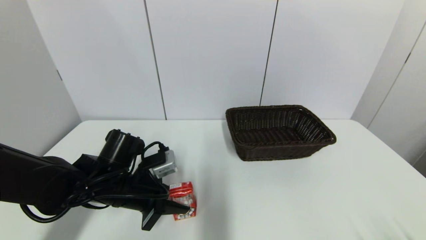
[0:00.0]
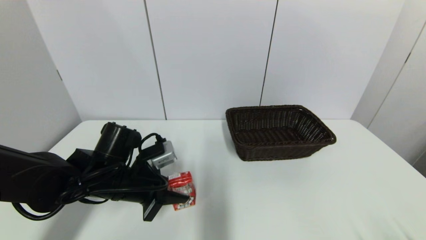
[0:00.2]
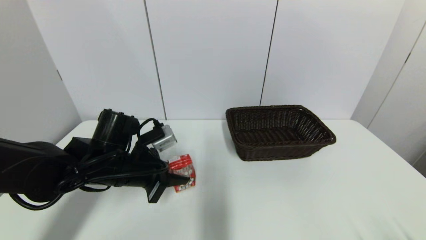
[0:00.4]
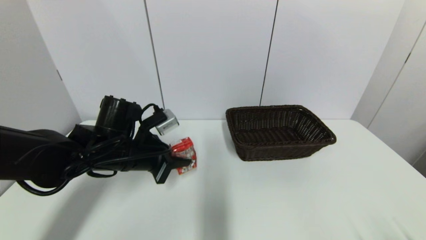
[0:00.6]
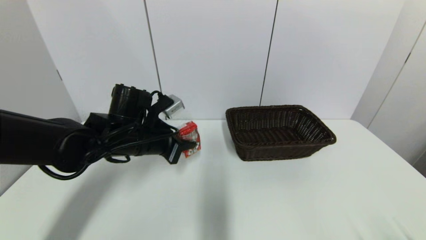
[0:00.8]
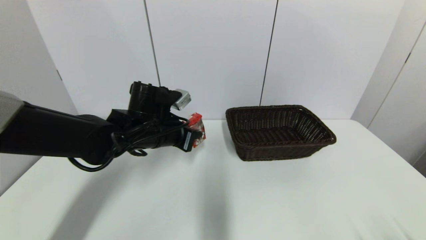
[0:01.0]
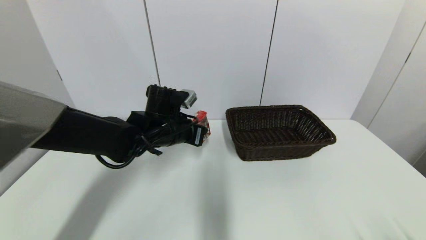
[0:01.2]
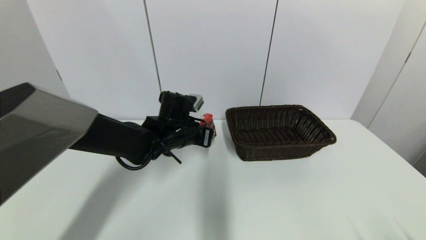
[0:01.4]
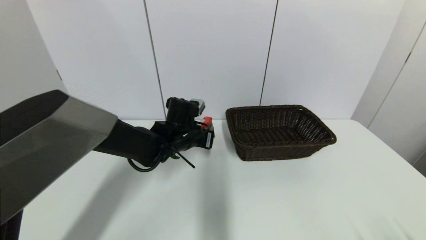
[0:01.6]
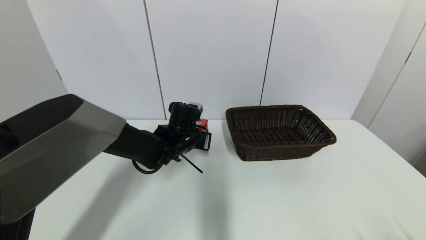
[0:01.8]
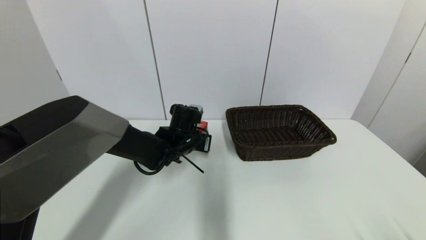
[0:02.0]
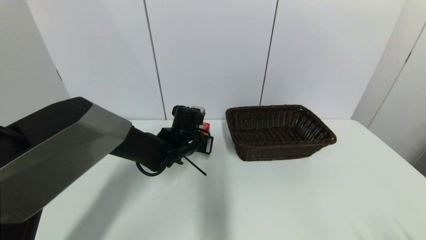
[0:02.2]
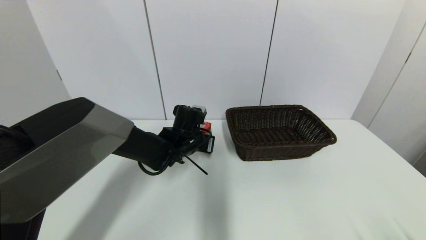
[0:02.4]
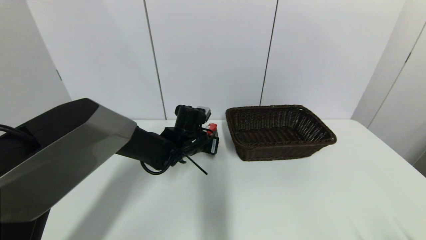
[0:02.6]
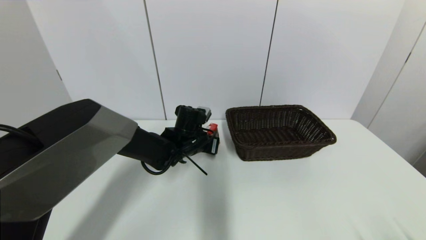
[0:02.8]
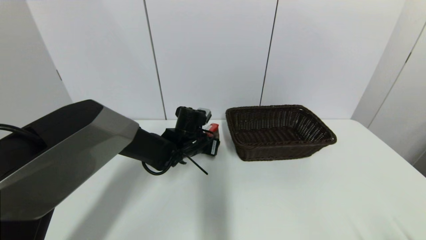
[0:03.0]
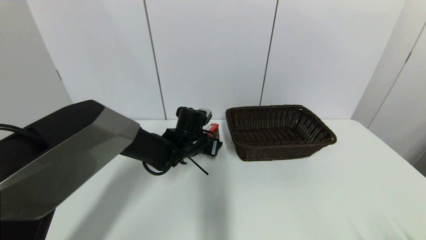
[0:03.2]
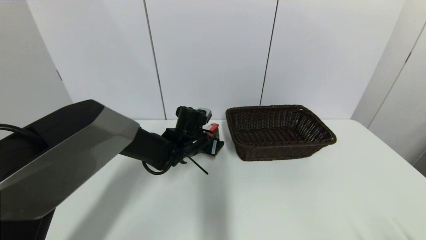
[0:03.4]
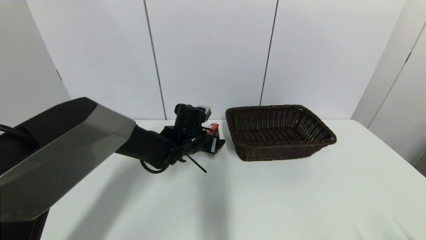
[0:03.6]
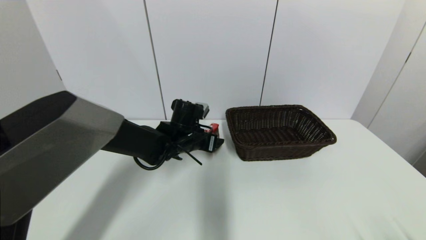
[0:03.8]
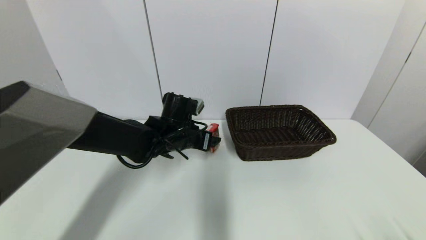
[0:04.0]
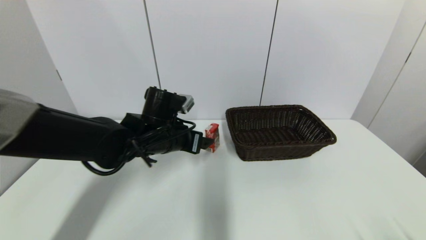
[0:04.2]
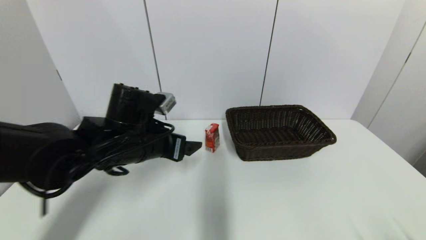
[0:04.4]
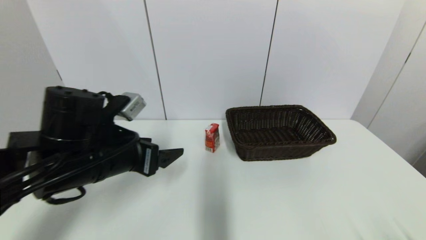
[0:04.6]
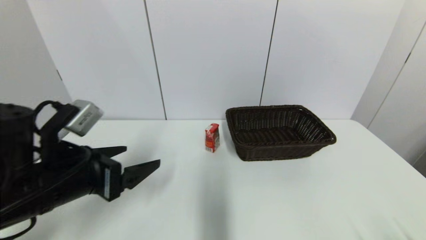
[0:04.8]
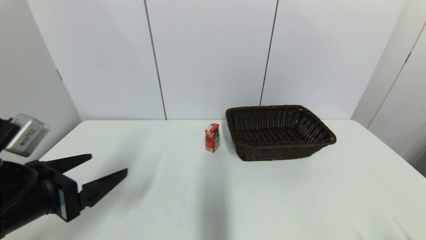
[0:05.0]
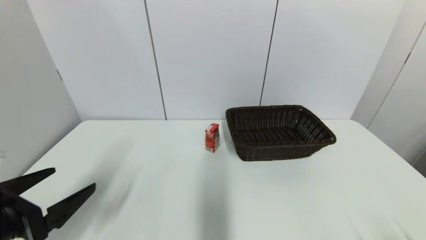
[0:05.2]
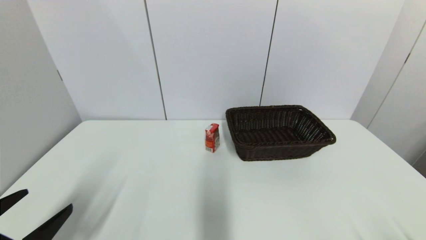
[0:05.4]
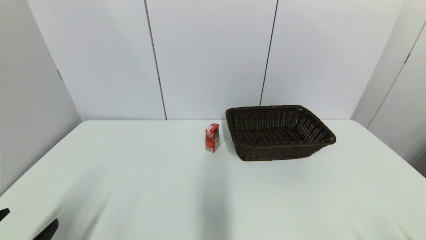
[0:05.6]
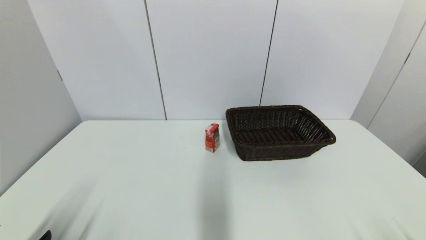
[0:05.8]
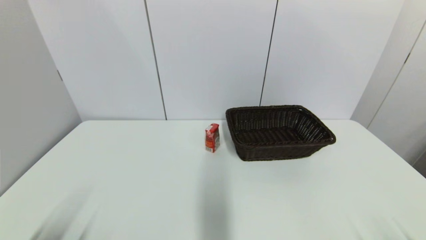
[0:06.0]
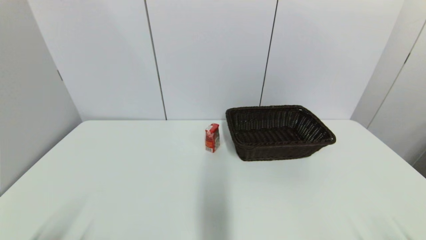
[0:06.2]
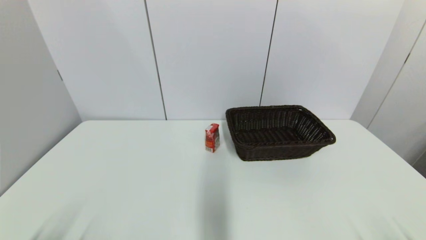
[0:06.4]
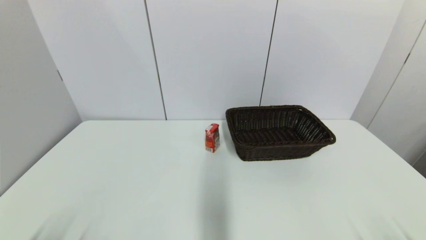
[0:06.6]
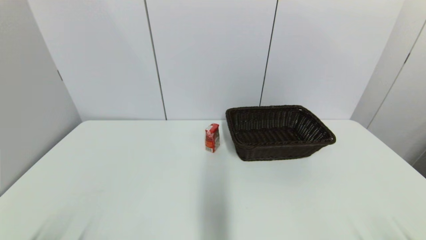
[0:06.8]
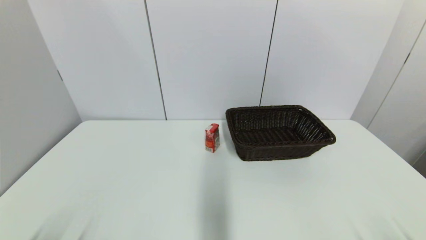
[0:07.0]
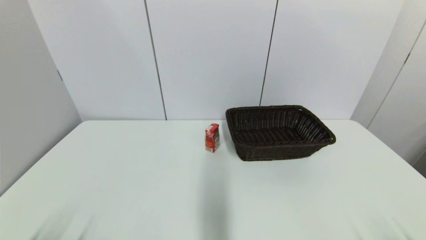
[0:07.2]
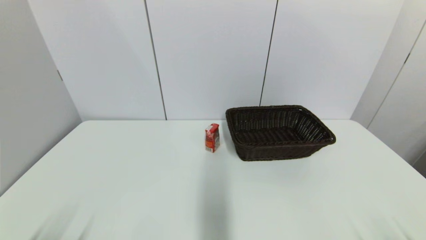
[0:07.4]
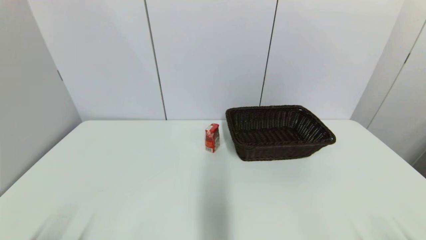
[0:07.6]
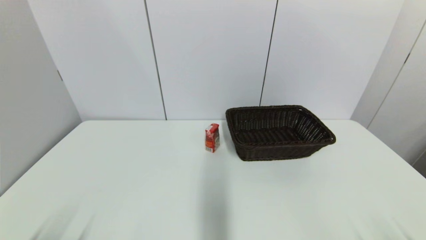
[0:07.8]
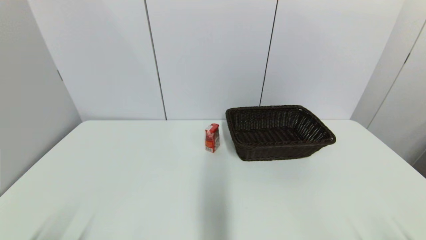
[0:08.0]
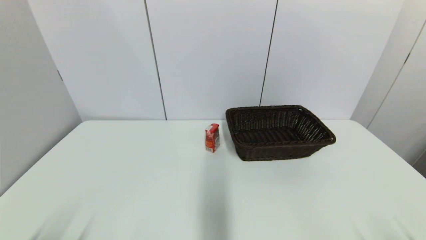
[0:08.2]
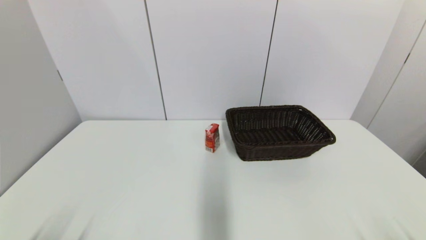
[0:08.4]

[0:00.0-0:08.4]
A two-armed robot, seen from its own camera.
Step, 0:00.0 to 0:03.0: Place the wangzai milk on the table with left gripper.
0:00.0 to 0:01.4: The left gripper goes approximately 15 cm forward and to the right.
0:01.4 to 0:02.8: The left gripper changes place by about 5 cm.
0:02.8 to 0:04.2: The left gripper goes approximately 10 cm upward, backward and to the left, and opens.
0:04.2 to 0:05.6: The left gripper heads backward and to the left, covering about 35 cm.
0:05.6 to 0:07.0: The left gripper shifts by about 5 cm.
0:07.0 to 0:08.4: Neither gripper changes place.
